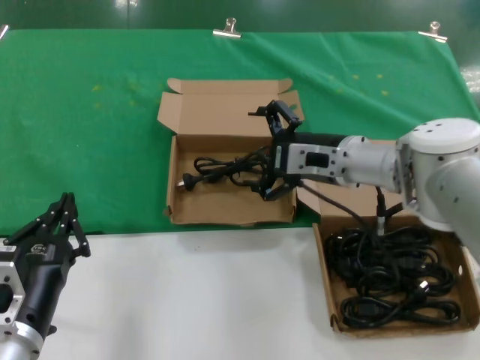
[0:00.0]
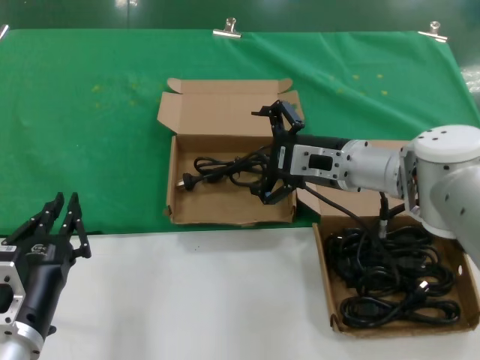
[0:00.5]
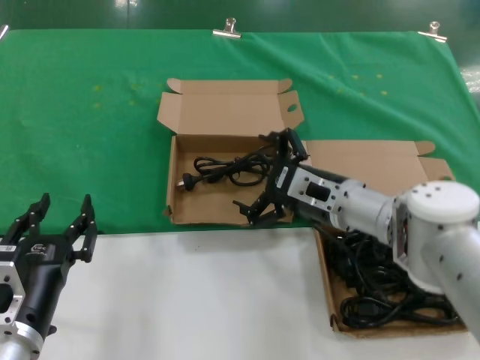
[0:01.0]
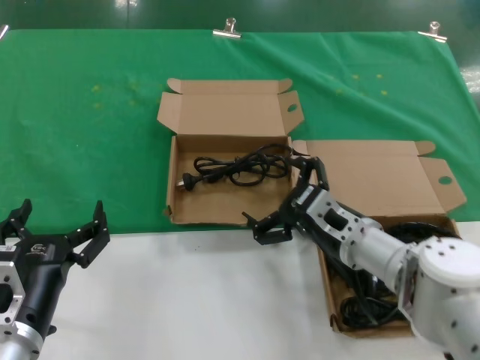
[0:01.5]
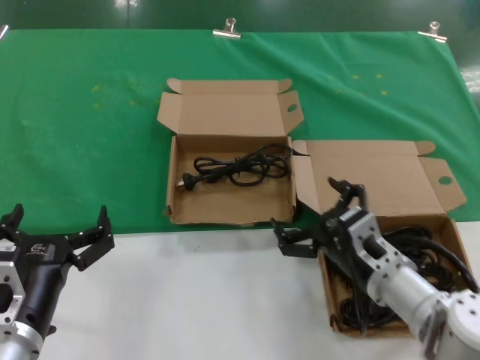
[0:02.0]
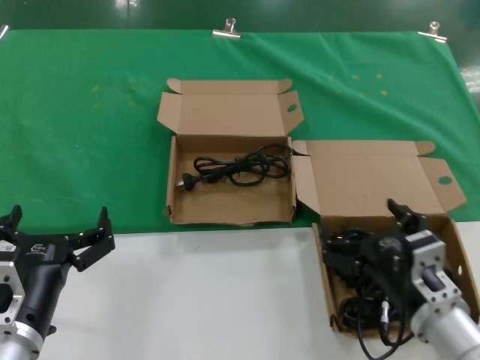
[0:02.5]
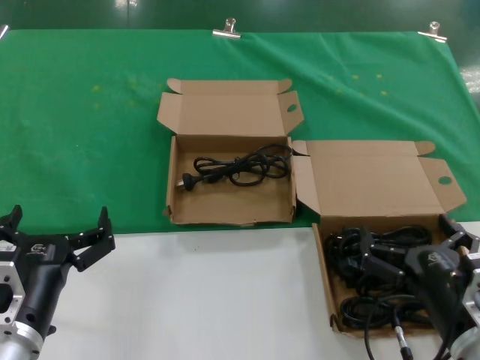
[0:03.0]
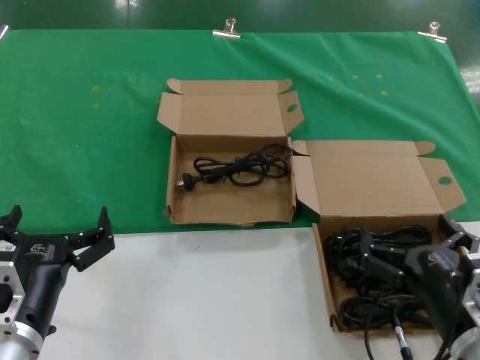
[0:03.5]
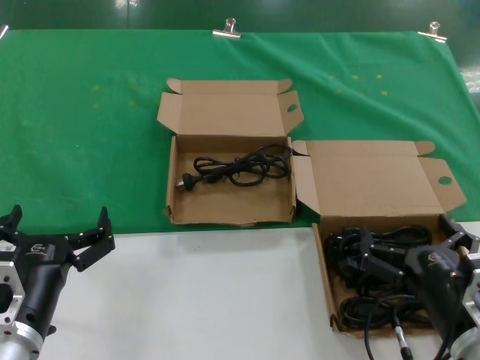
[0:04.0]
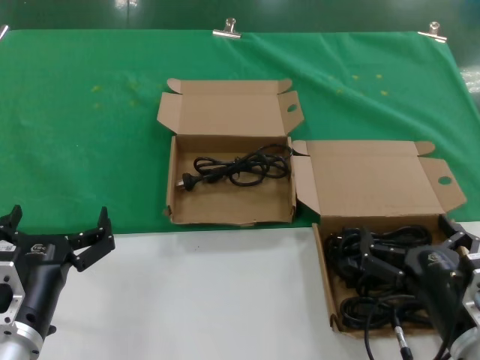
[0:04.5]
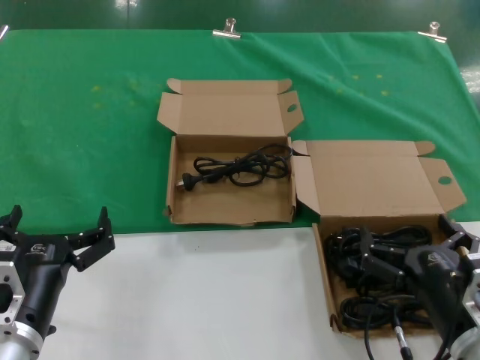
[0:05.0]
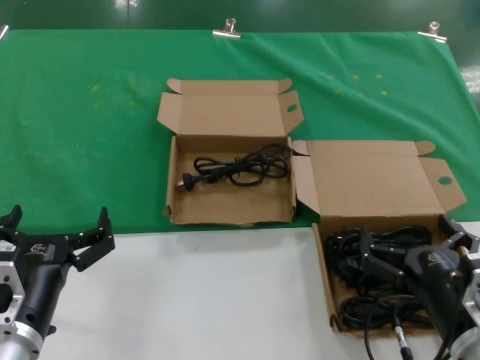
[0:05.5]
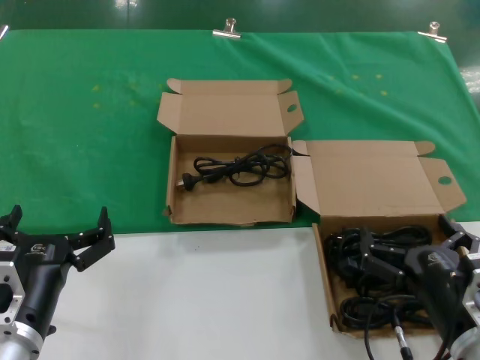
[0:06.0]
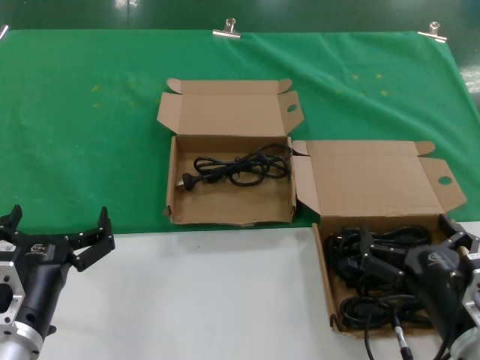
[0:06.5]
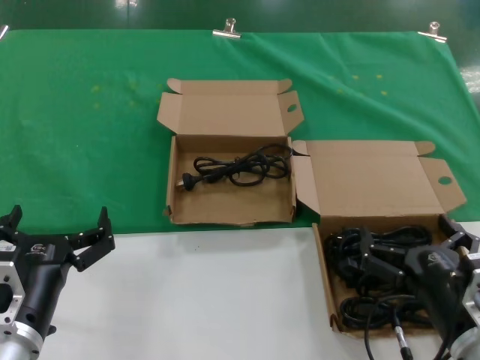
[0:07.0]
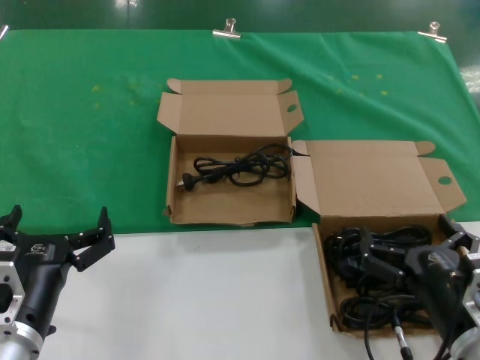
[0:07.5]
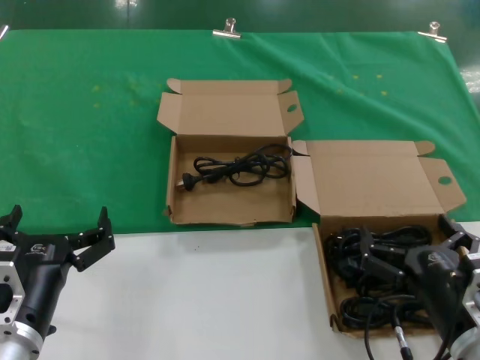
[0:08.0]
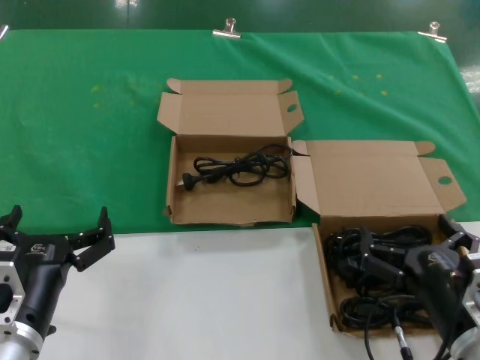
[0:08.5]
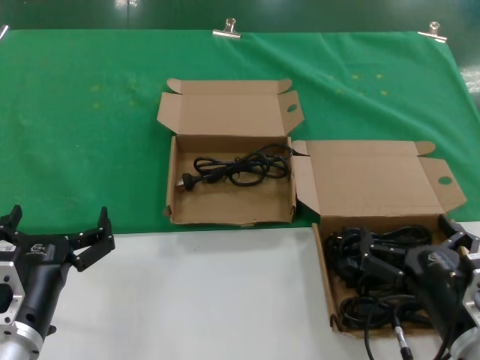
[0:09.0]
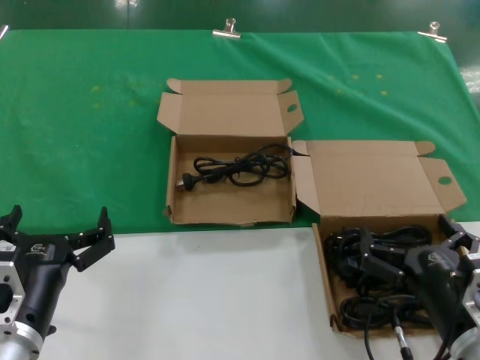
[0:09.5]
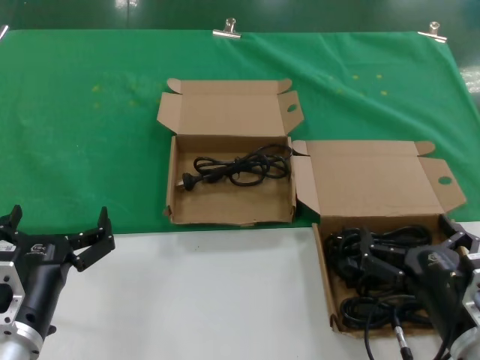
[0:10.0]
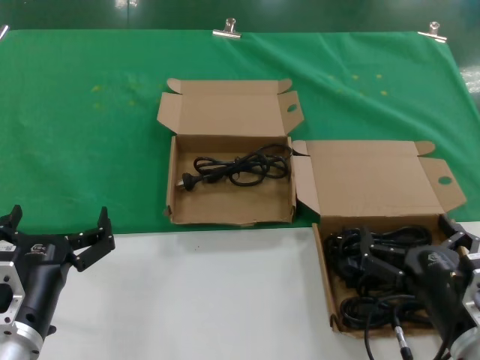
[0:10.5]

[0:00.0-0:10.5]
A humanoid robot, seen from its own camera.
Task of the whole recording: take the parts from the box containing them and put them into an empty box.
0:00.0 to 0:02.0: The right hand is displaced downward and backward by roughly 20 cm.
0:02.0 to 0:04.0: The right hand is displaced backward and to the right by roughly 15 cm.
0:04.0 to 0:10.5: The two hands keep their place.
